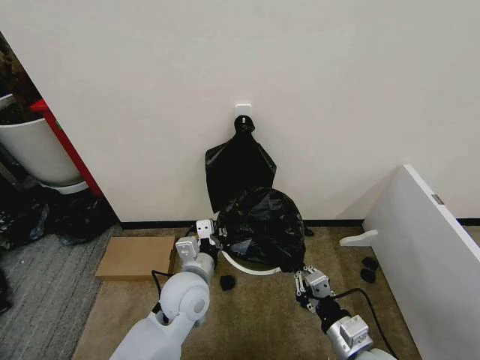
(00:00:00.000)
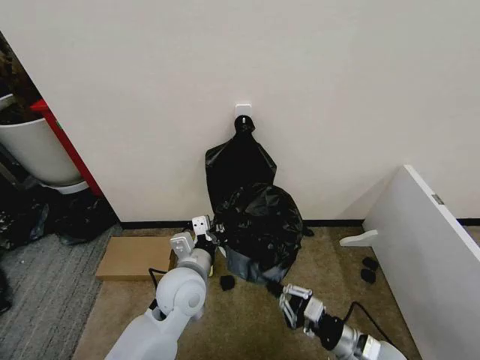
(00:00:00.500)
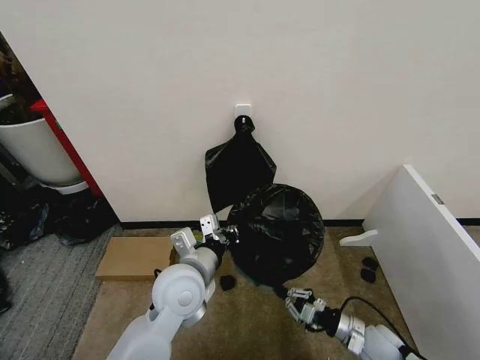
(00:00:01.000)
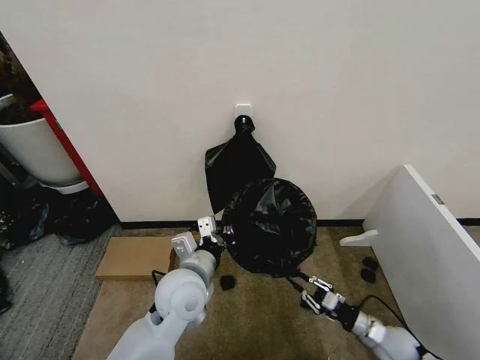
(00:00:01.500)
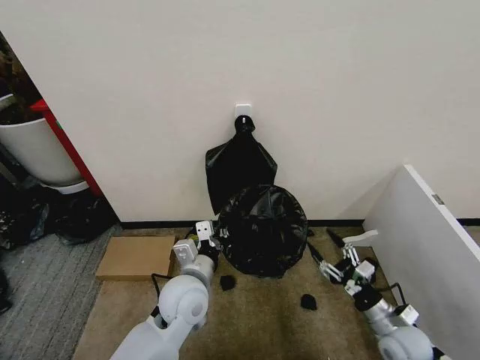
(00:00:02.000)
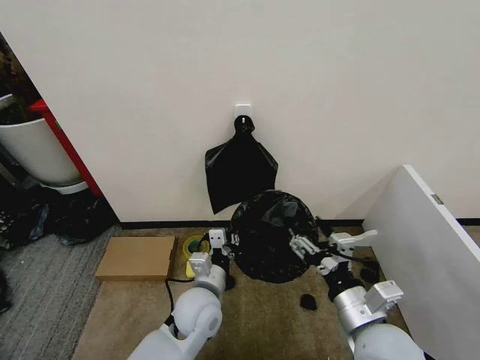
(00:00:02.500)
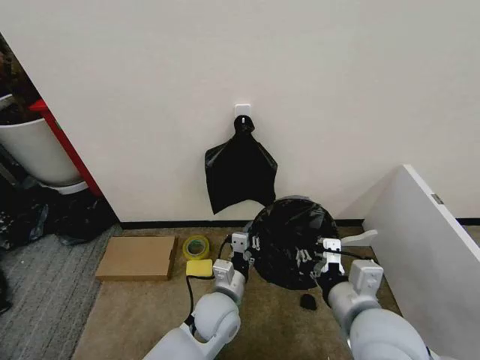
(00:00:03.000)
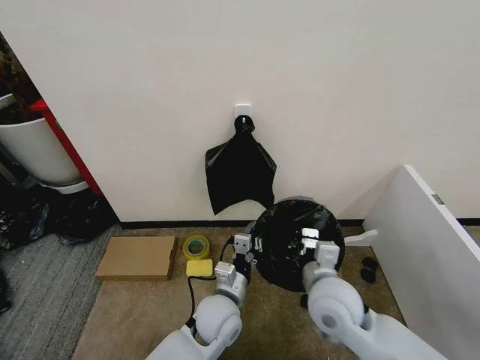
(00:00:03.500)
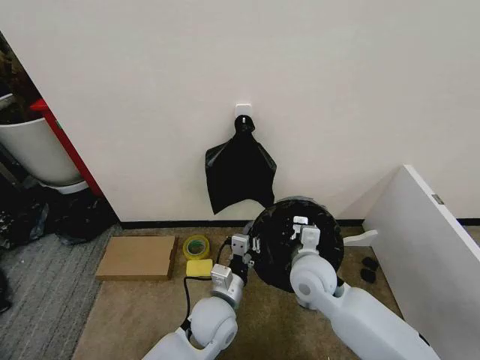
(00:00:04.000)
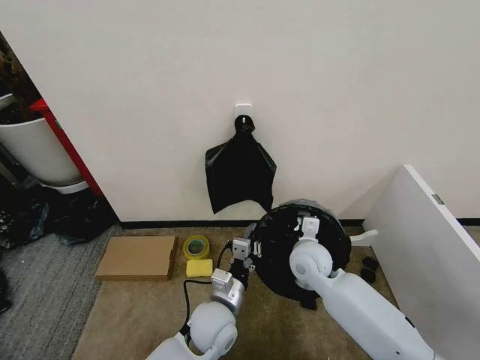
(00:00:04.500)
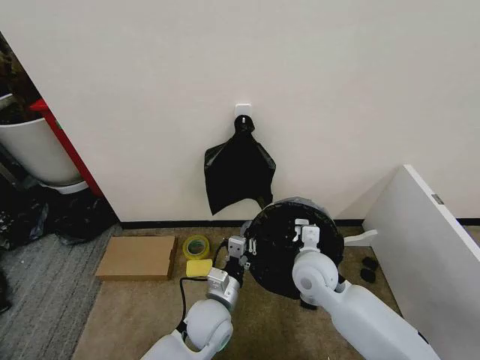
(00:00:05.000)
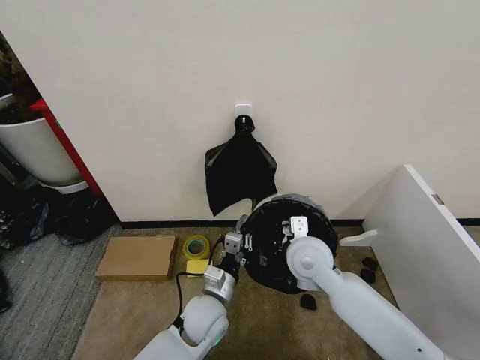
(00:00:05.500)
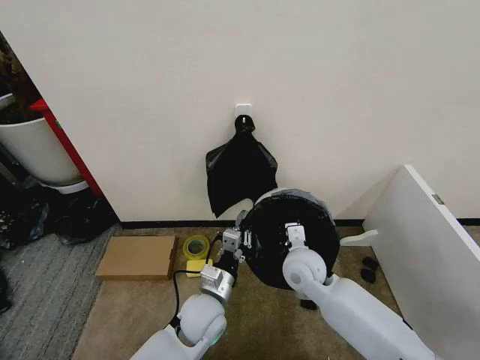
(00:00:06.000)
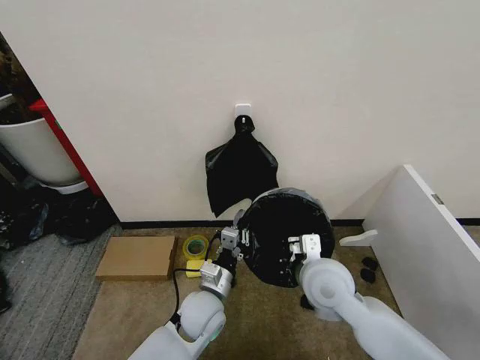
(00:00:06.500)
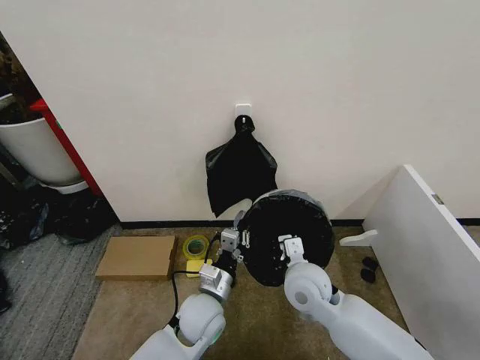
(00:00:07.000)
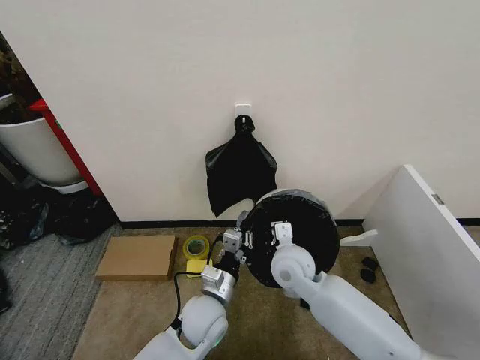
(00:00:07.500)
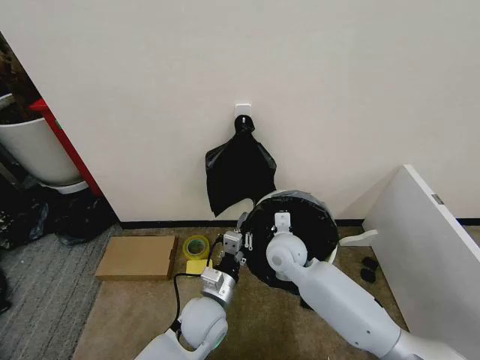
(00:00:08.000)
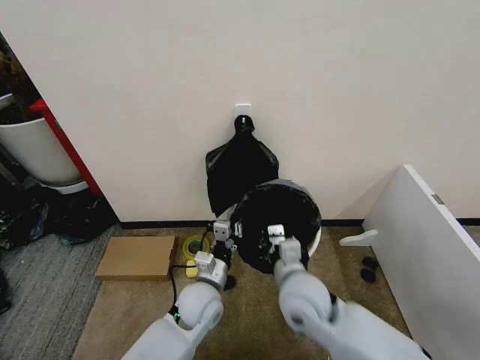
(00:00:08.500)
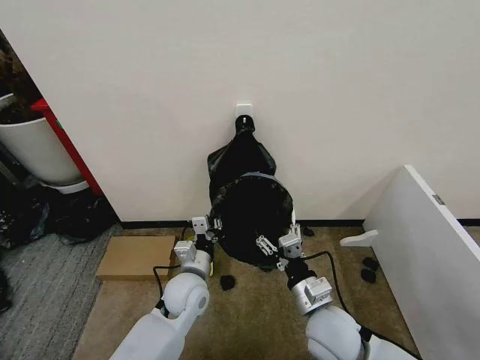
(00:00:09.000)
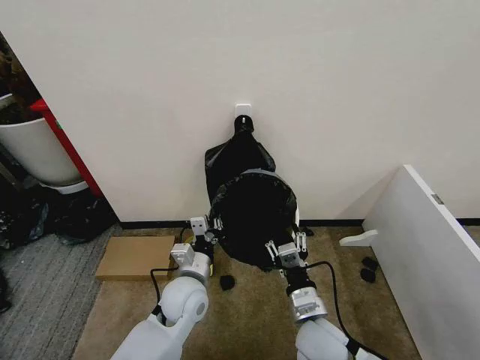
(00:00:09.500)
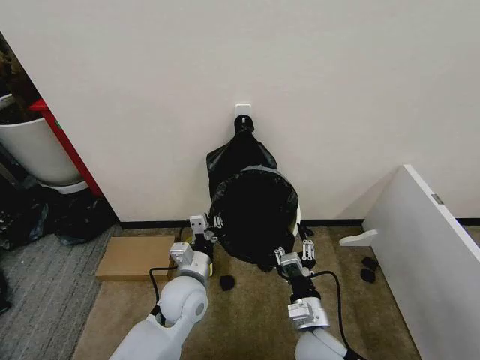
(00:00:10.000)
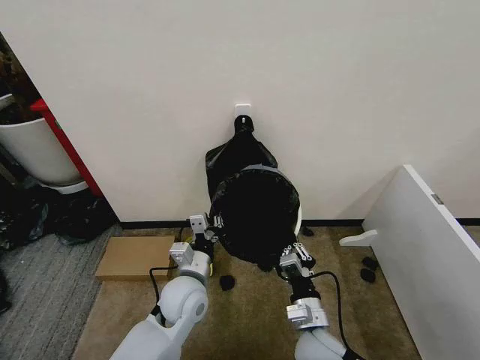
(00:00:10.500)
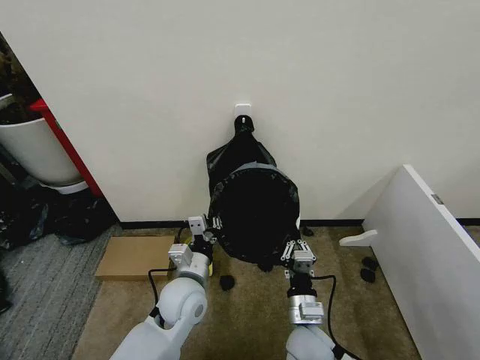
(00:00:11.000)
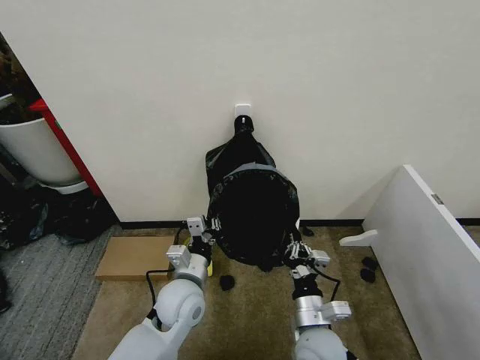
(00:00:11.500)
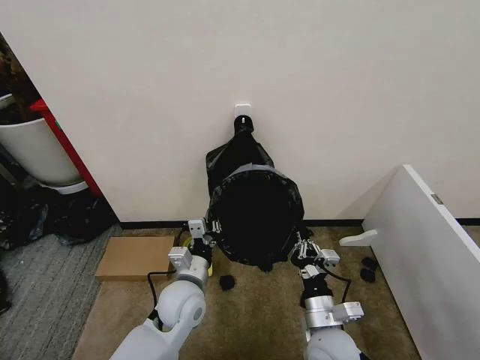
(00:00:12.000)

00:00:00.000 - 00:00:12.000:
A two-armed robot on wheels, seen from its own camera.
Task of the whole recording: Place the garbage bag over the trash bin.
00:00:00.000 - 00:00:02.000: The right gripper moves to the right, downward and forward, roughly 15 cm, and opens.
00:00:02.000 - 00:00:04.000: The left gripper goes roughly 10 cm downward and to the right, while the right gripper goes approximately 25 cm to the left, upward and forward, and closes its fingers.
00:00:08.000 - 00:00:10.000: The left gripper shifts by about 5 cm. Meanwhile the right gripper travels backward by approximately 20 cm, and opens.
00:00:10.000 - 00:00:12.000: The right gripper closes its fingers.

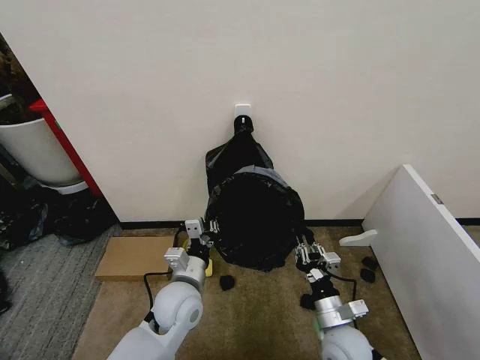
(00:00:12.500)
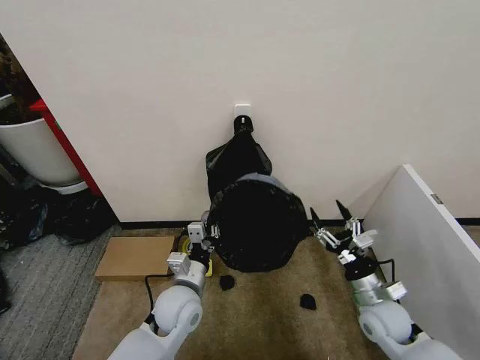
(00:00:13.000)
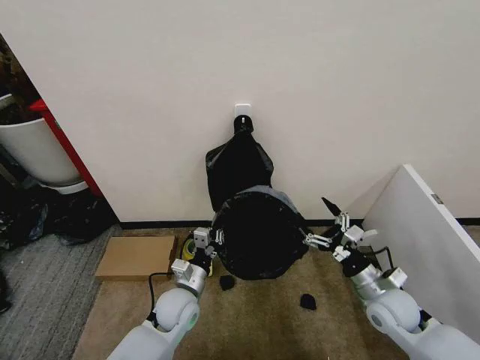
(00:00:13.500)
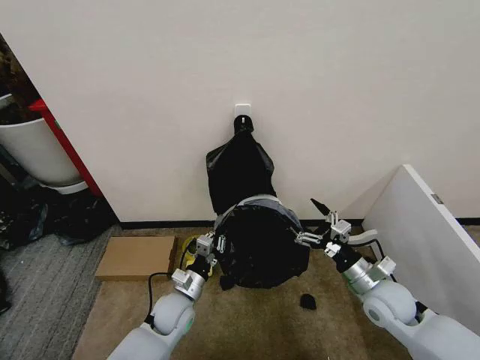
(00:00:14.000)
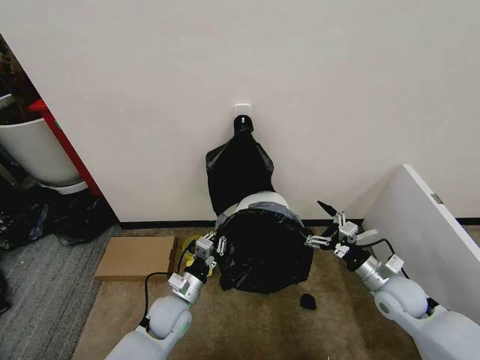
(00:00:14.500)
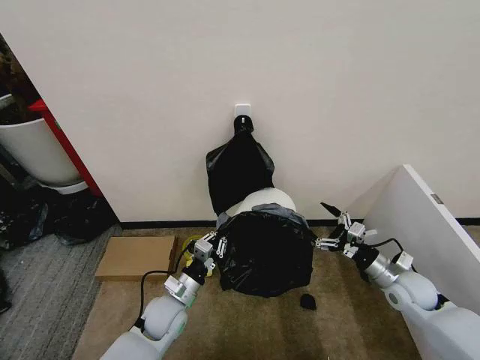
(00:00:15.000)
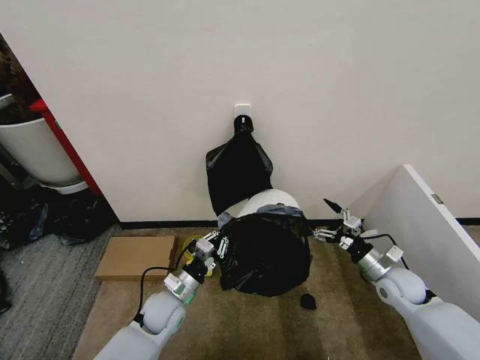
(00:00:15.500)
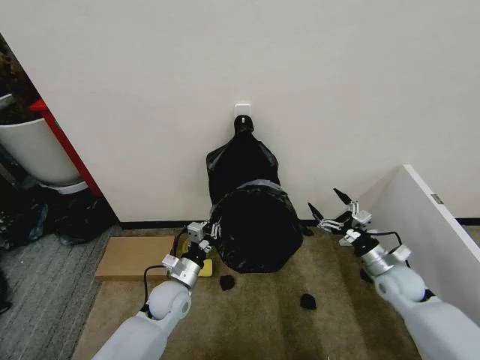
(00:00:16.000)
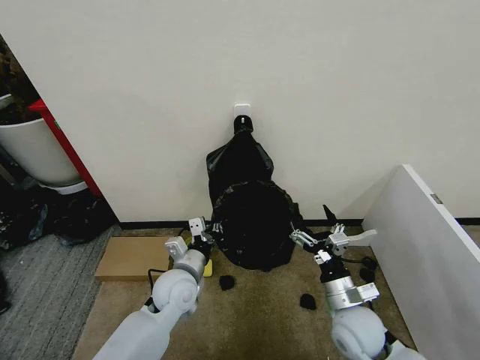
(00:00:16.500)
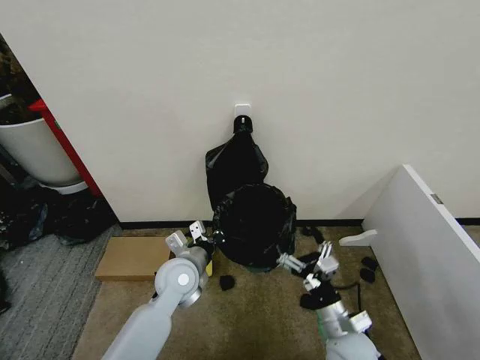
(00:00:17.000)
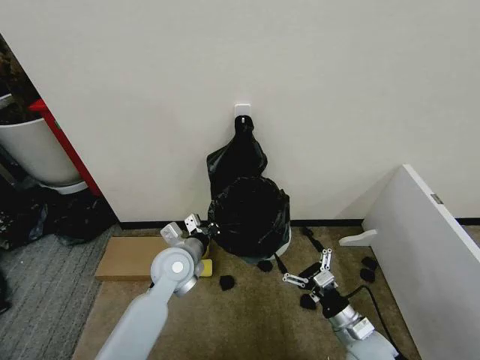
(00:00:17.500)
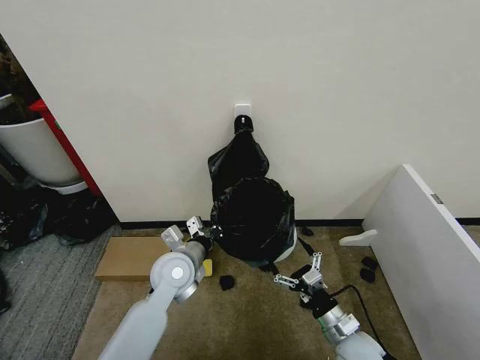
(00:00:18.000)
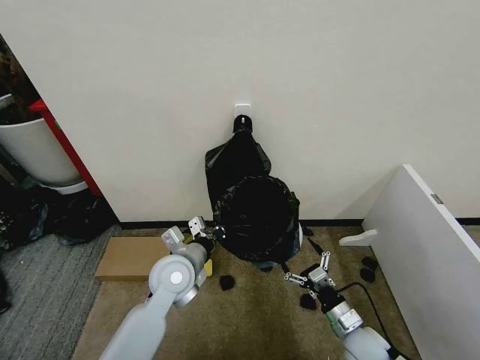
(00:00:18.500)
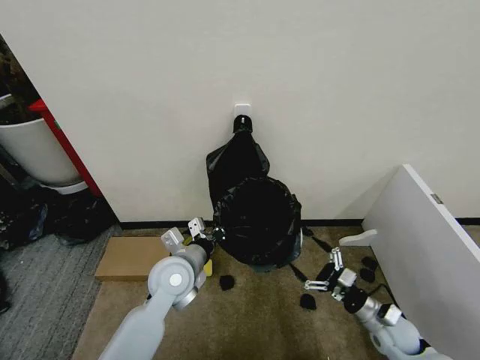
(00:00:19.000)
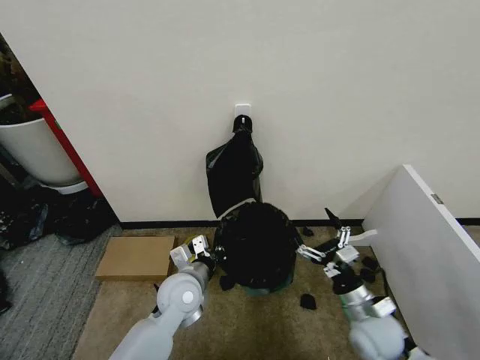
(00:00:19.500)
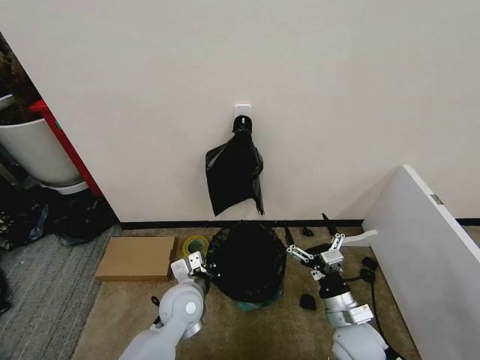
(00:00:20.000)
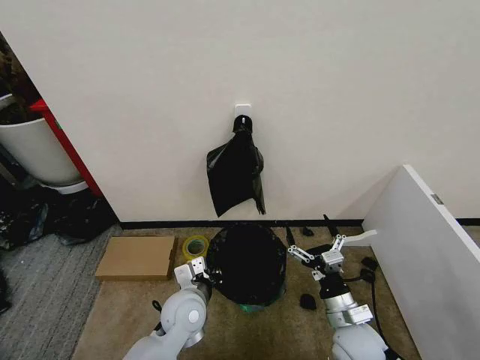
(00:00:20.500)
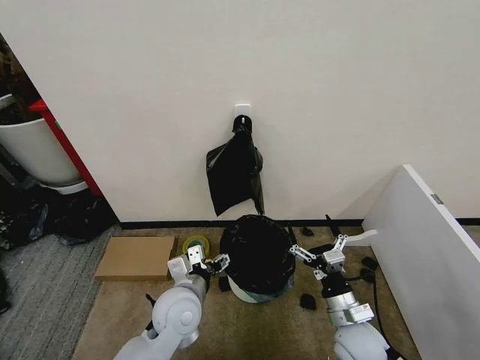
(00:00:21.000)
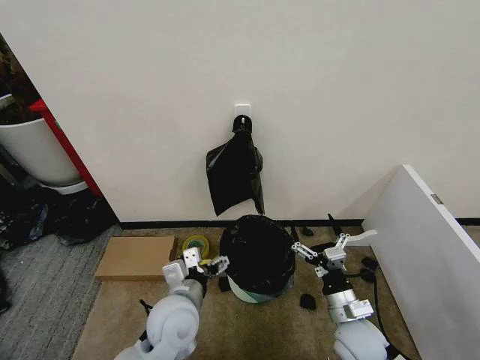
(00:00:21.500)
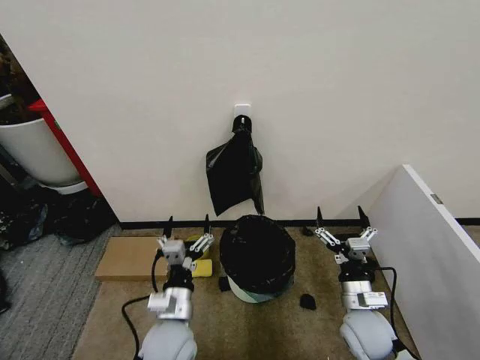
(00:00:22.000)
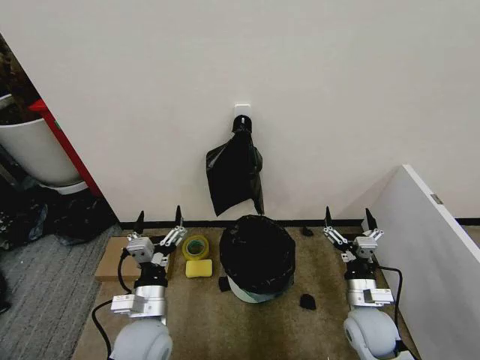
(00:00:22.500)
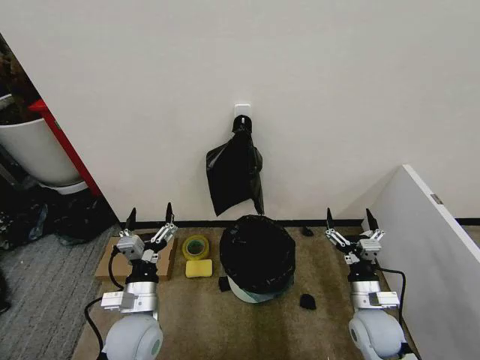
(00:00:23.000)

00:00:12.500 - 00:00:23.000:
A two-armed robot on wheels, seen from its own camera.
Task of the whole recording: Place the garbage bag over the trash bin.
00:00:12.500 - 00:00:14.500: The right gripper travels to the right and forward by some 15 cm, and opens its fingers. Meanwhile the left gripper is displaced downward by roughly 10 cm.
00:00:14.500 - 00:00:16.500: The right gripper heads to the left and backward, covering approximately 15 cm. The left gripper moves upward, some 10 cm.
00:00:16.500 - 00:00:19.000: The right gripper is displaced to the right and downward by some 15 cm. The left gripper is displaced upward by about 5 cm.
00:00:19.000 - 00:00:21.000: The right gripper shifts about 15 cm to the left and upward. Meanwhile the left gripper is displaced backward by some 5 cm, and opens its fingers.
00:00:21.000 - 00:00:23.000: The left gripper goes roughly 10 cm to the left. The right gripper is displaced to the right by some 5 cm.
